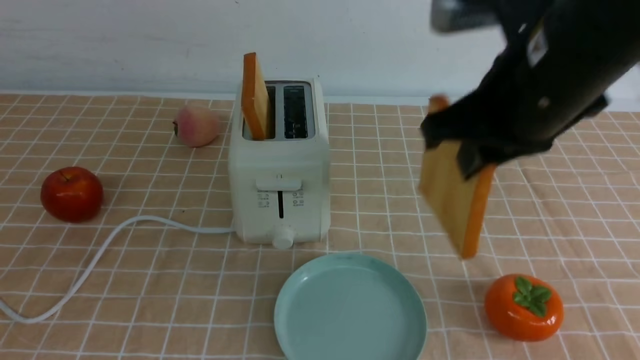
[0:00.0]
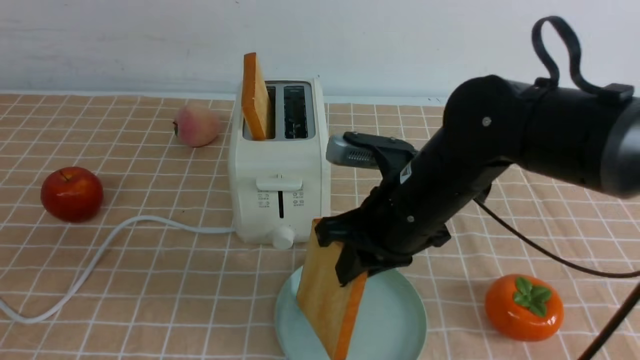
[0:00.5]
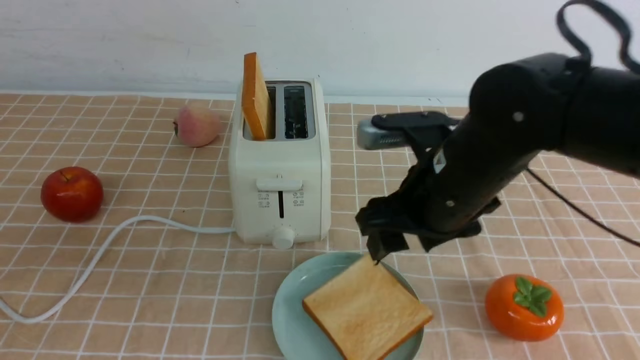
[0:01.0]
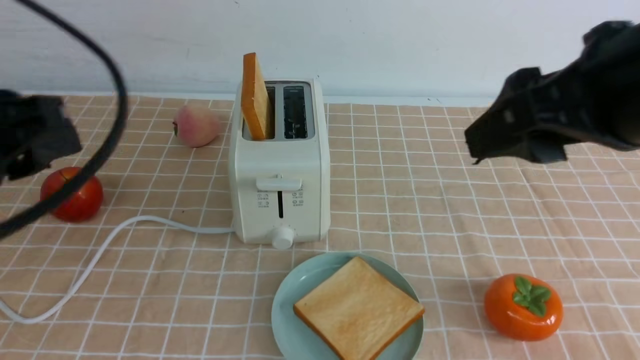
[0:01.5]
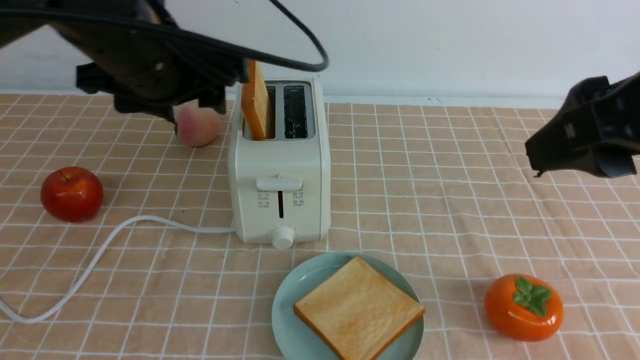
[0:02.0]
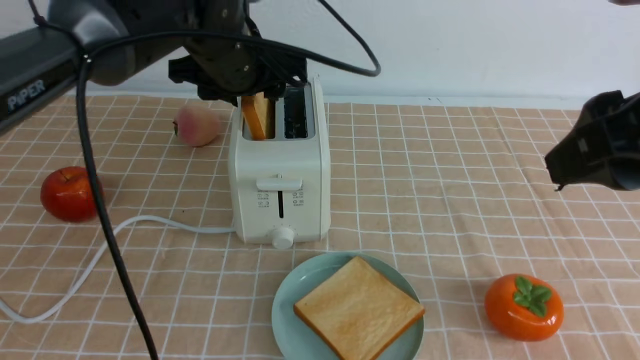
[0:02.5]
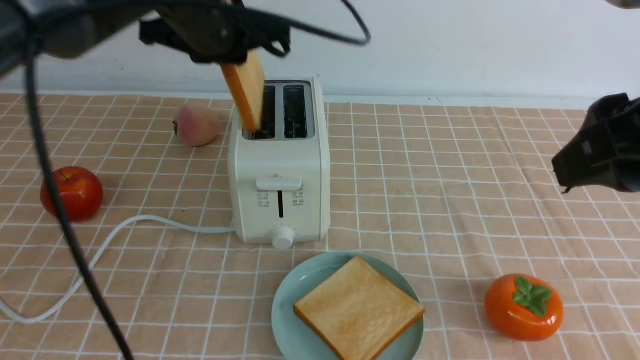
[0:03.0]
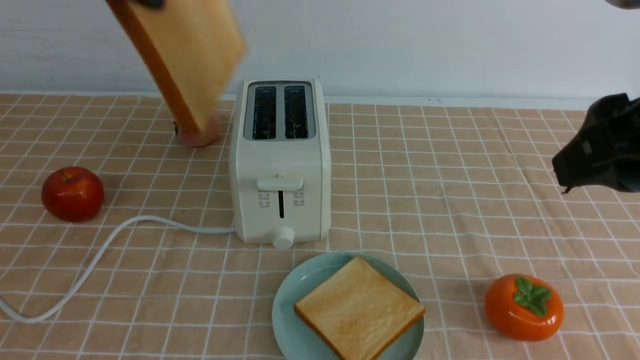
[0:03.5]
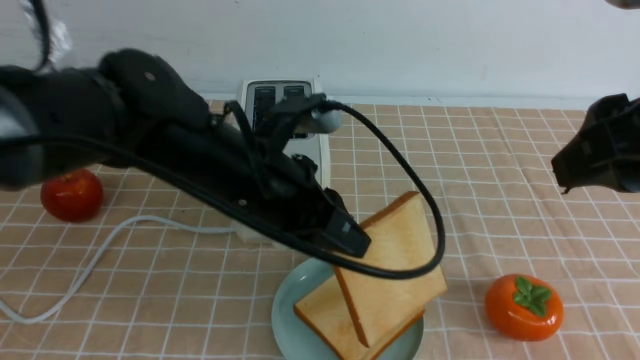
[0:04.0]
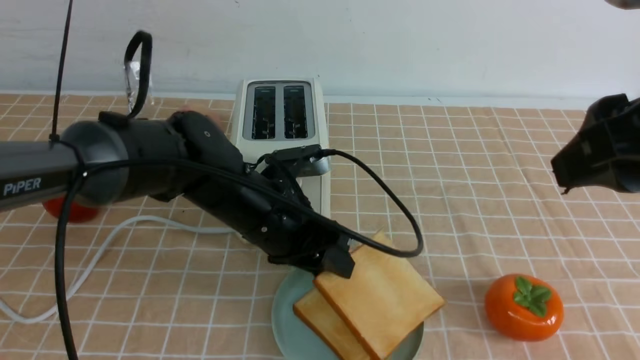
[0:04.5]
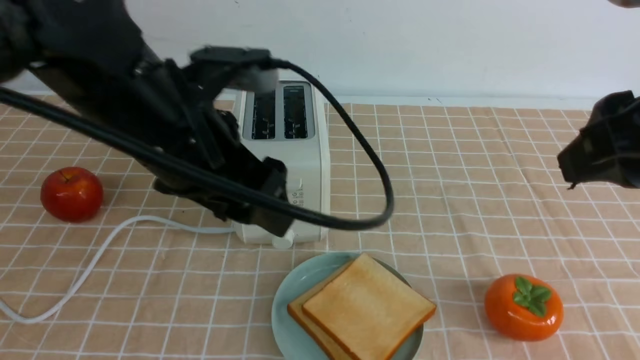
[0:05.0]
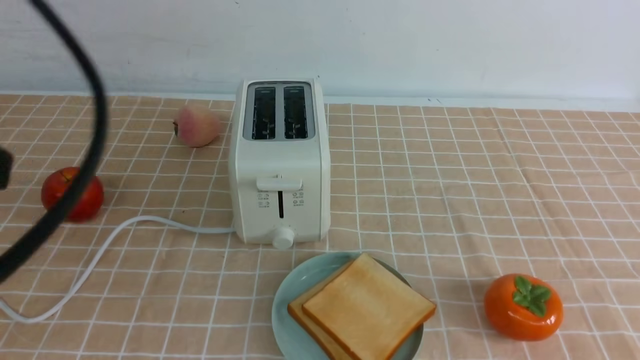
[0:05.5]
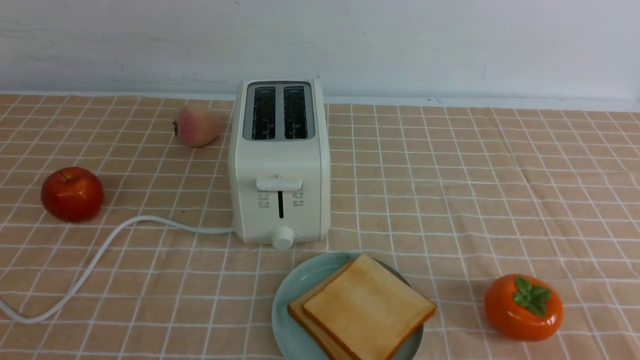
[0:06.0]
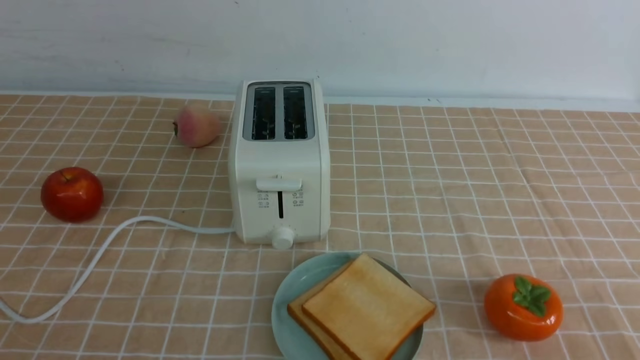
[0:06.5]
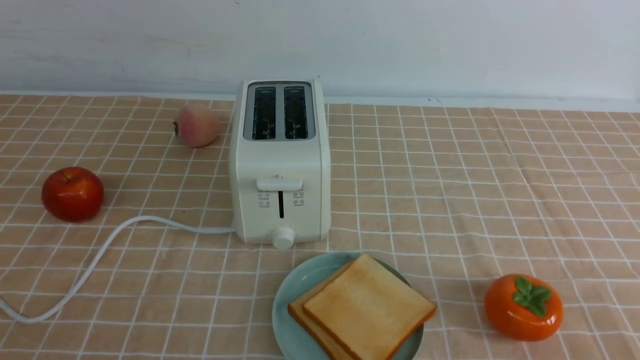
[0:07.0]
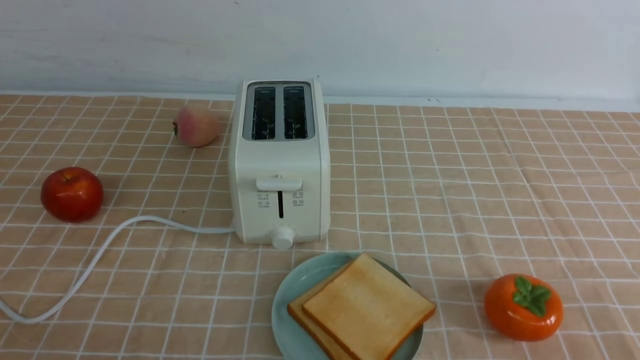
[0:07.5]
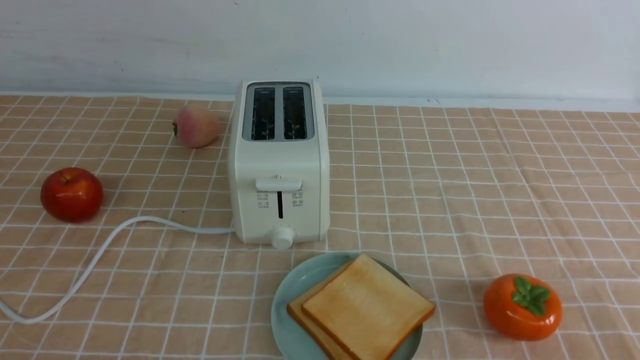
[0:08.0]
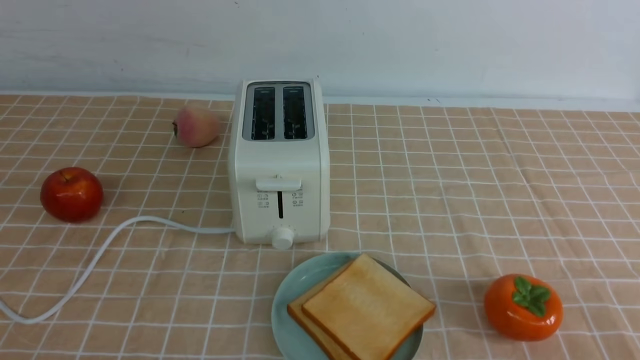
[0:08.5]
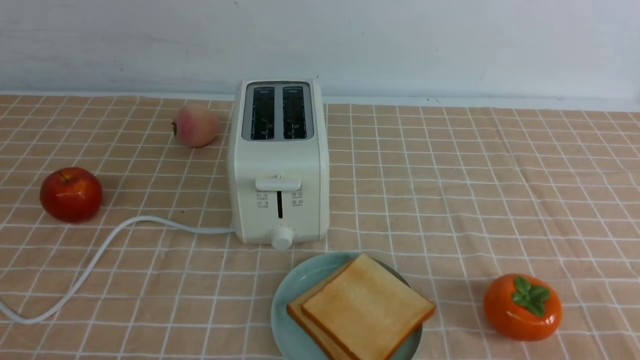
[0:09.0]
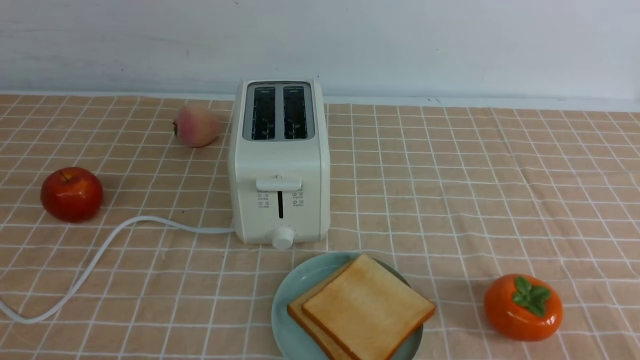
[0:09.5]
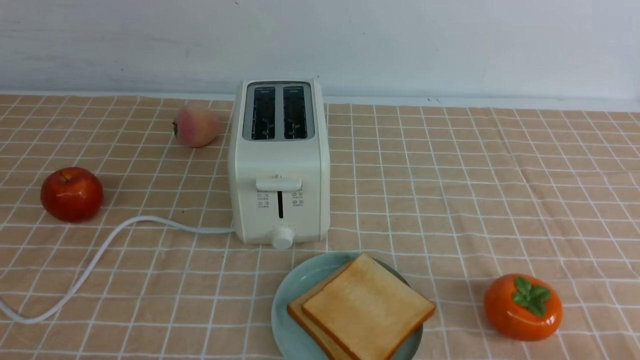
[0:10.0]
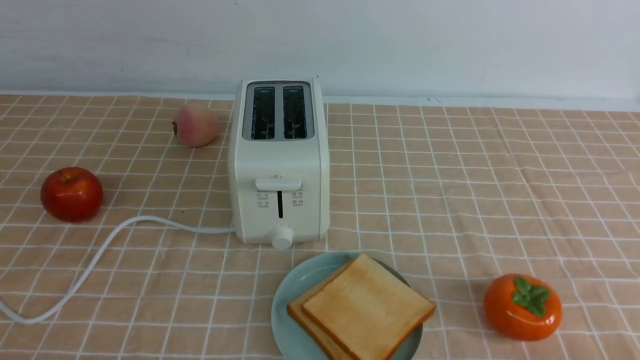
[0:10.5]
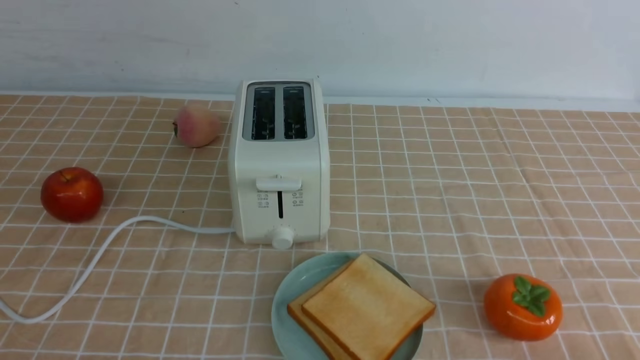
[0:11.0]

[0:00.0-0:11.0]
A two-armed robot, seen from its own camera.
Task of the whole recording: take toasted bread from bread machine on light coffee tablecloth place on plate.
Step, 0:01.5 to 0:02.5: use the left arm to take out a slice of bread.
Step, 0:03.0 to 0:04.5: use the left arm to put a slice of bread into the empty plate.
0:00.0 to 0:02.0: The left gripper goes about 20 cm forward, and opens its fingers. The right gripper shifts some 10 cm backward, moves about 15 cm downward and comes back, and opens its fingers.
0:02.0 to 0:03.5: The left gripper goes some 10 cm upward, and closes its fingers.
0:03.5 to 0:05.5: The left gripper goes roughly 10 cm backward, travels downward and back again, some 25 cm each way, and opens its fingers. The right gripper closes up.
0:05.5 to 0:07.5: The two grippers go about 20 cm downward and backward. The left gripper closes up.

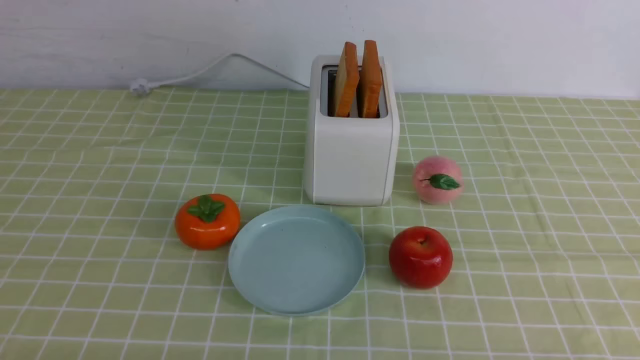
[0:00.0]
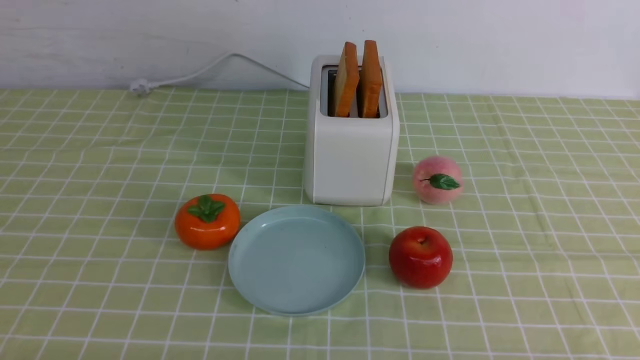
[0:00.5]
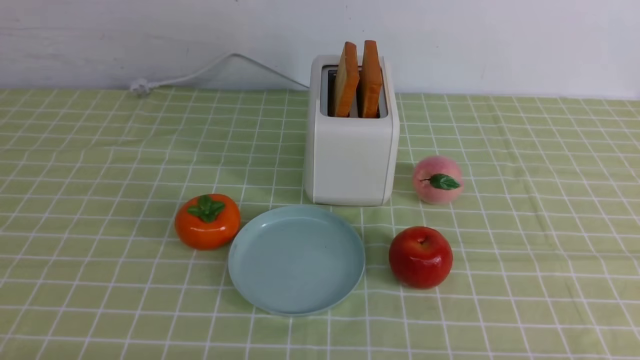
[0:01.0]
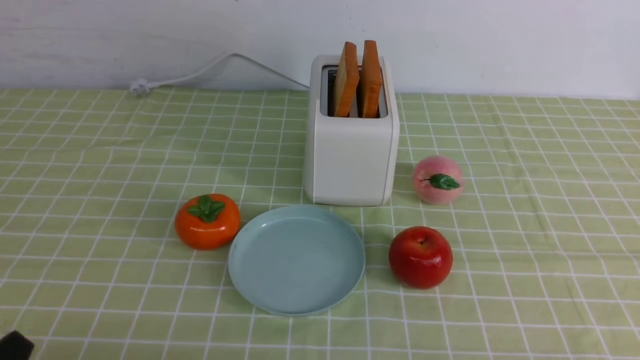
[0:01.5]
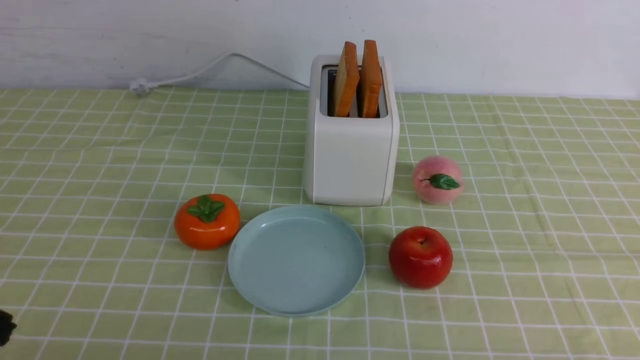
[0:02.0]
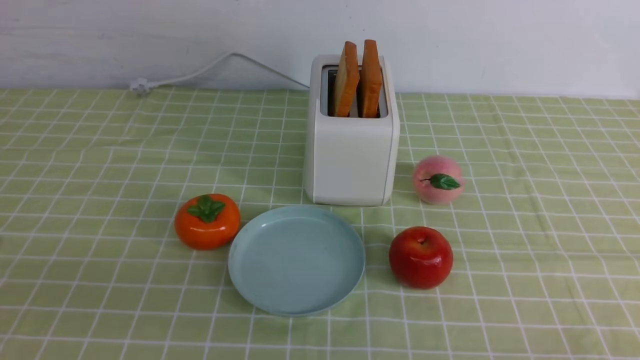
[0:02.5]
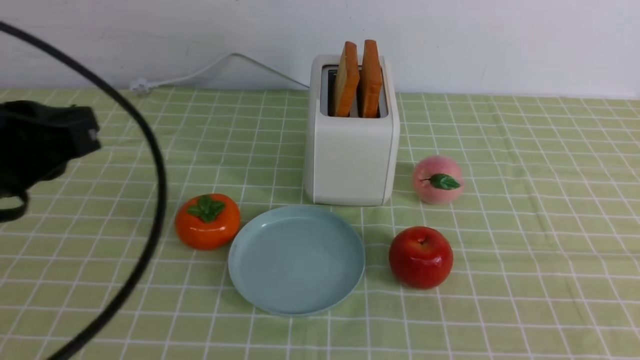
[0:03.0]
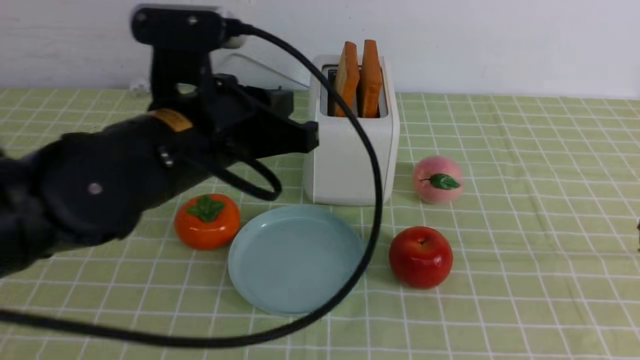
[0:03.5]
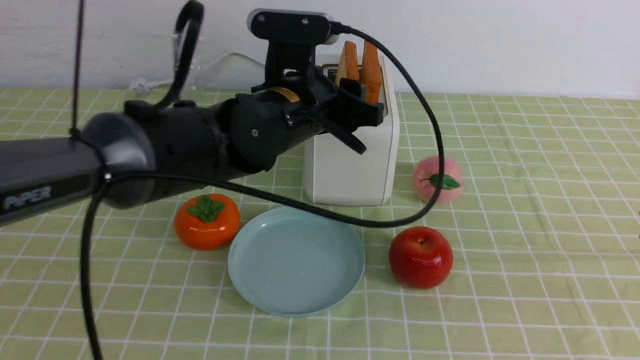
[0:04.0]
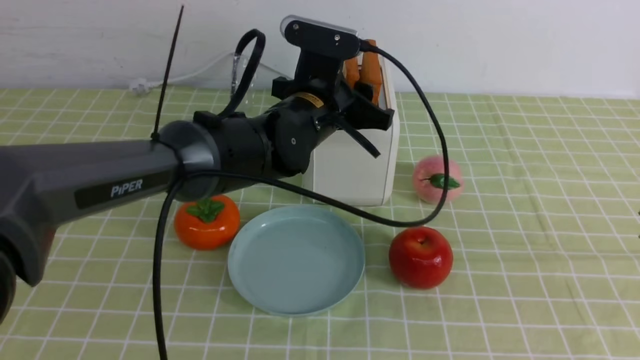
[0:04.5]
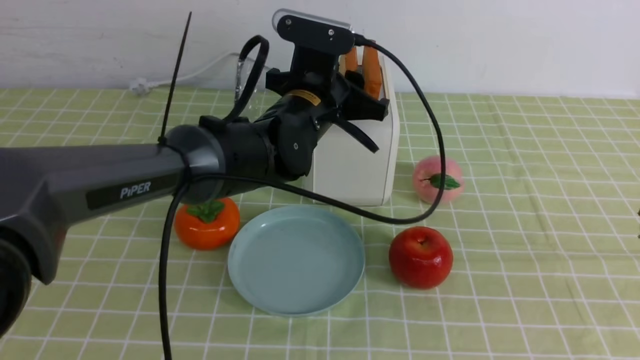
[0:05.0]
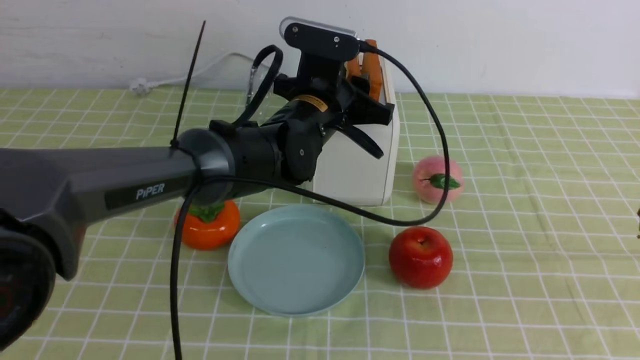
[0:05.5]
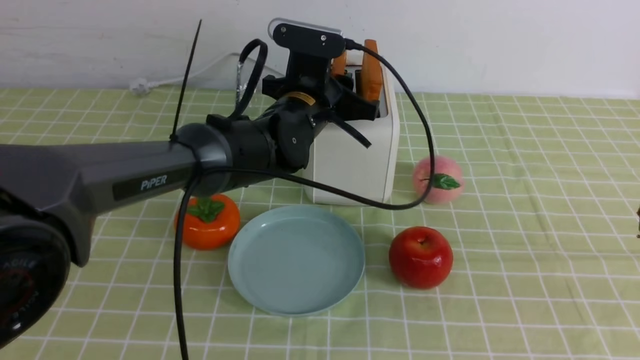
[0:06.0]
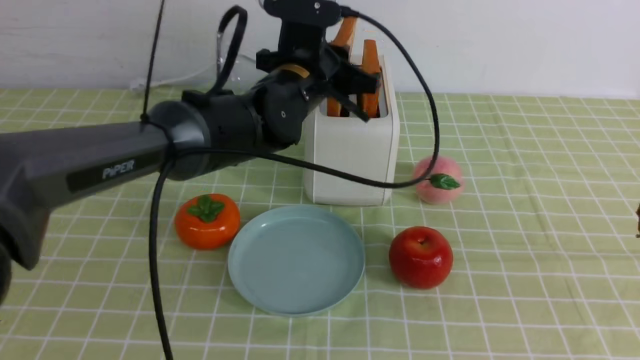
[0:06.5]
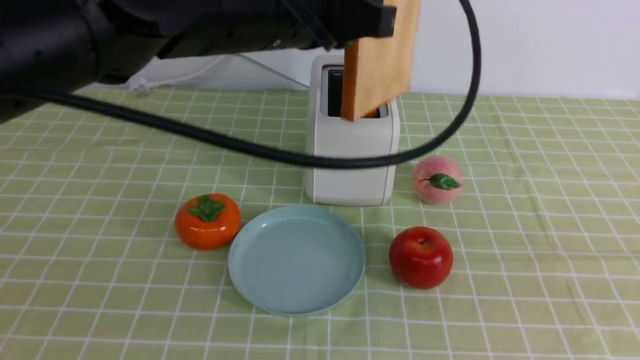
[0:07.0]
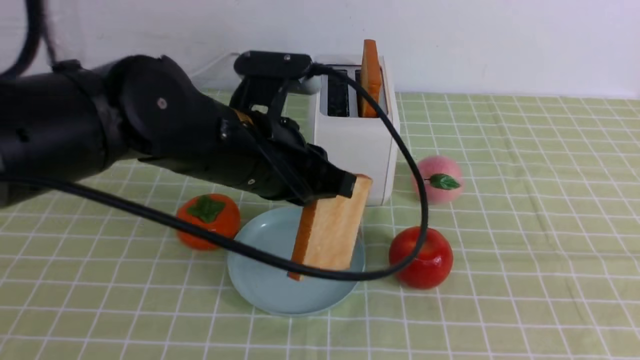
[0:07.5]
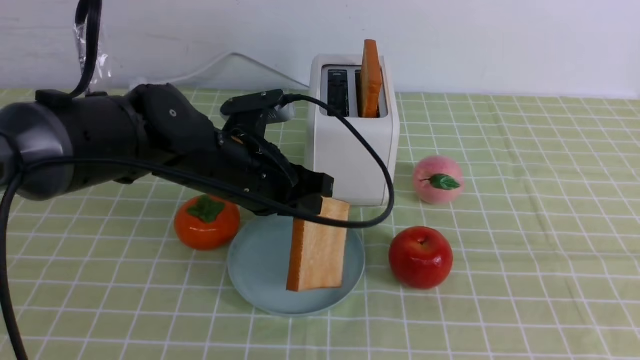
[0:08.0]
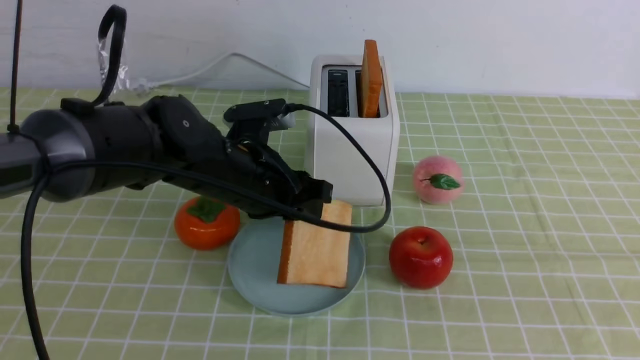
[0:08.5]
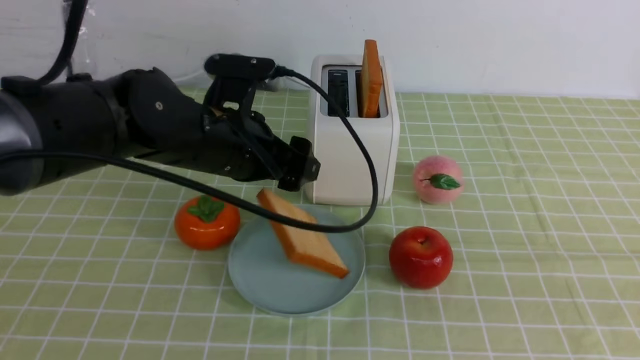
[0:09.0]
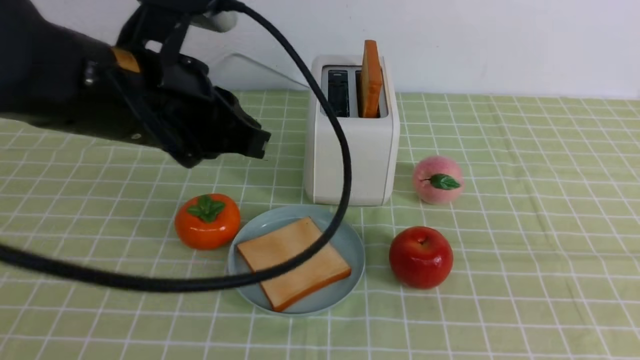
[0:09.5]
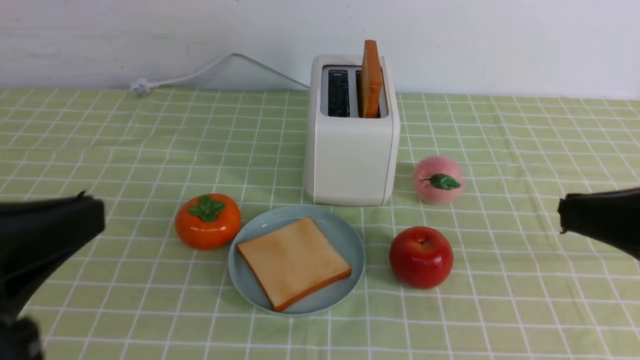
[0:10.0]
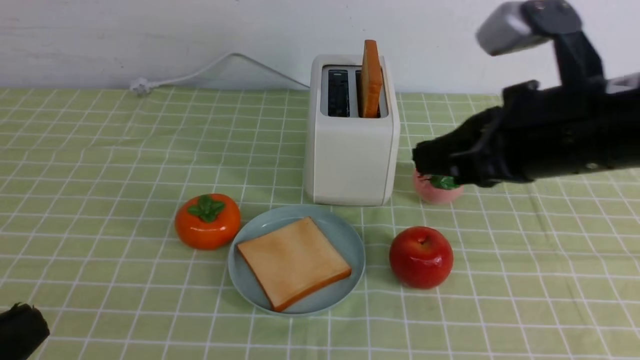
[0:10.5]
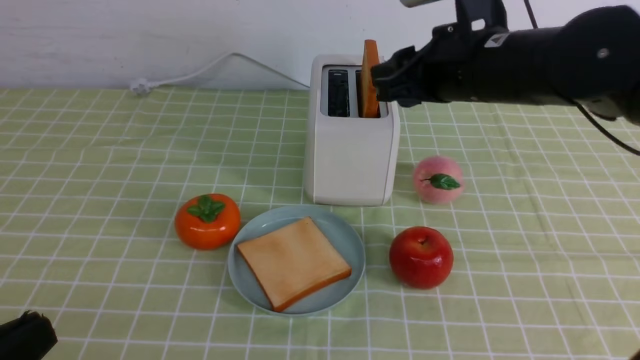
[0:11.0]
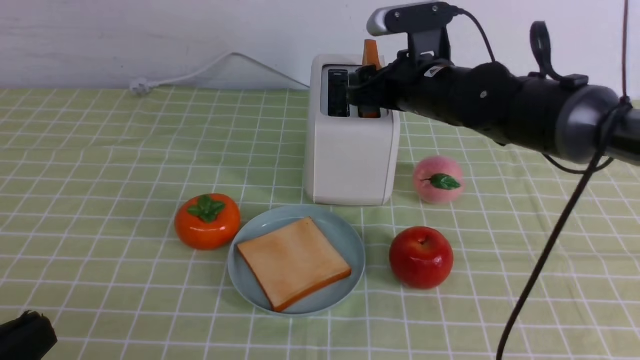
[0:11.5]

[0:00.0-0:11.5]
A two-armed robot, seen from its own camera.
Task of the whole recording: take toasted bread from bread machine on green coffee tablecloth place on plate.
Step, 0:00.0 to 0:06.5: use the left arm to take out a slice of bread.
Step, 0:07.0 to 0:09.0: use the left arm to put a slice of bread into the empty plate.
0:02.0 to 0:04.0: The left gripper heads forward and to the right, covering some 40 cm, and opens up, while the right gripper travels upward by about 20 cm, and closes.
0:04.0 to 0:06.0: The left gripper is displaced forward by some 5 cm, and closes.
0:06.0 to 0:07.5: The left gripper travels backward by about 15 cm, and travels upward and back again, about 15 cm each way.
0:07.5 to 0:09.5: The left gripper moves upward, to the left and backward, some 10 cm, and opens and closes again.
0:09.5 to 0:11.5: The left gripper shifts some 25 cm backward, to the left and downward. The right gripper travels forward and to the left by approximately 35 cm, and opens.
